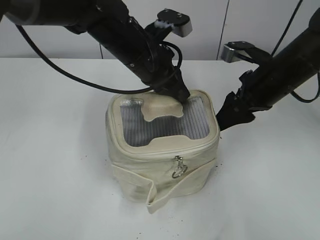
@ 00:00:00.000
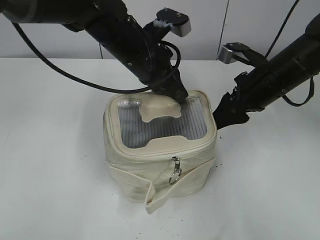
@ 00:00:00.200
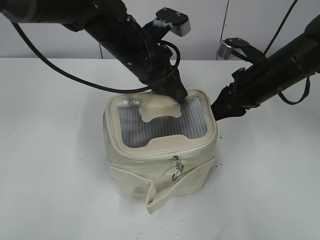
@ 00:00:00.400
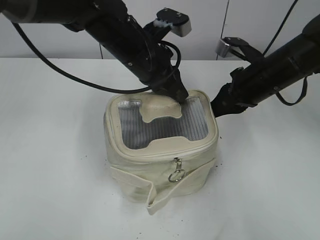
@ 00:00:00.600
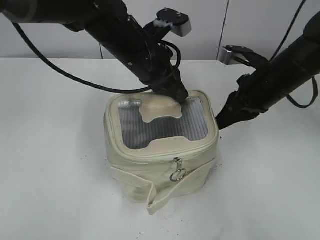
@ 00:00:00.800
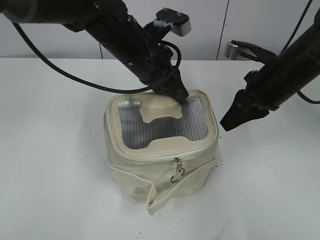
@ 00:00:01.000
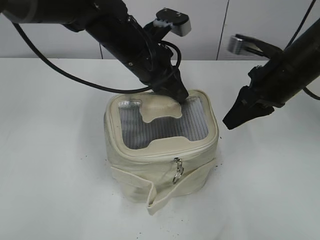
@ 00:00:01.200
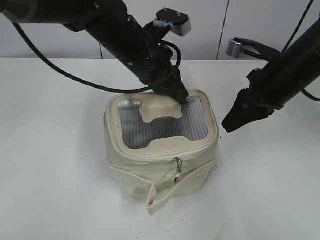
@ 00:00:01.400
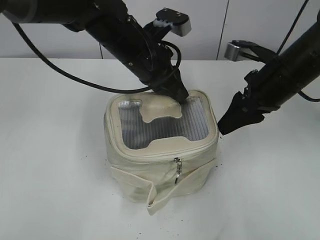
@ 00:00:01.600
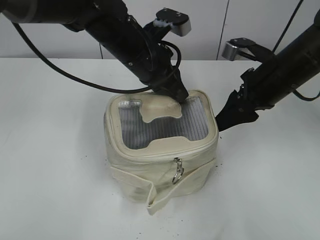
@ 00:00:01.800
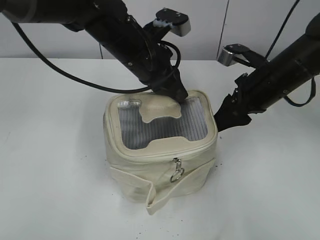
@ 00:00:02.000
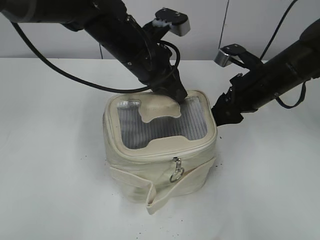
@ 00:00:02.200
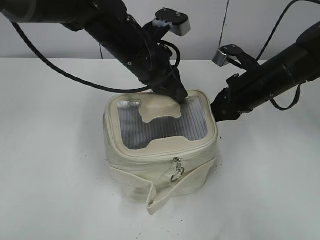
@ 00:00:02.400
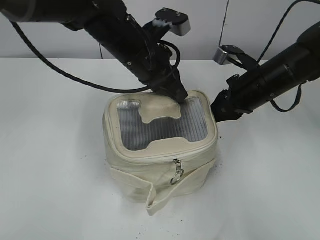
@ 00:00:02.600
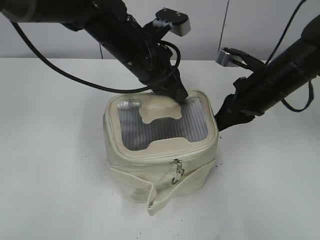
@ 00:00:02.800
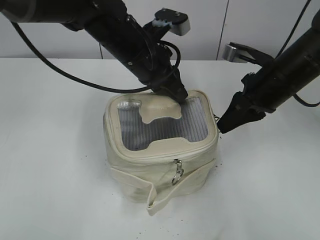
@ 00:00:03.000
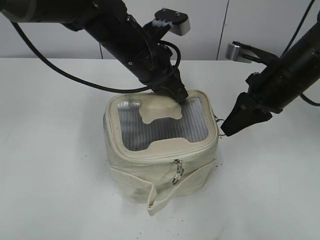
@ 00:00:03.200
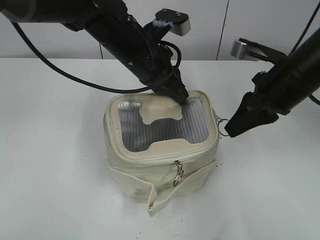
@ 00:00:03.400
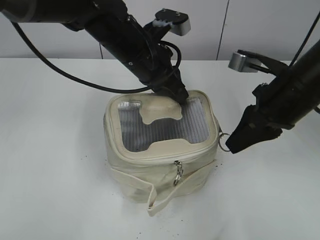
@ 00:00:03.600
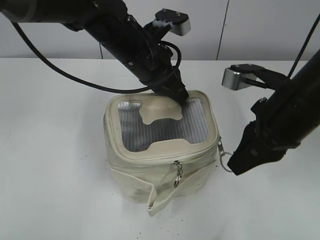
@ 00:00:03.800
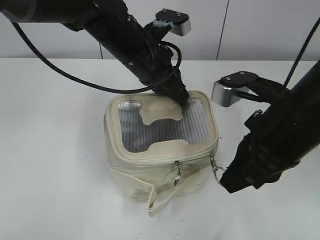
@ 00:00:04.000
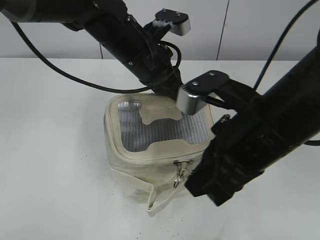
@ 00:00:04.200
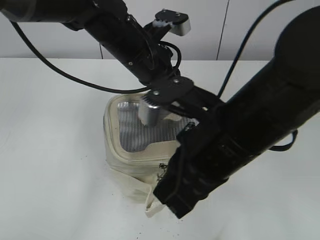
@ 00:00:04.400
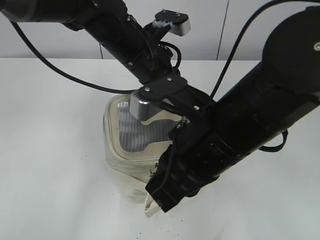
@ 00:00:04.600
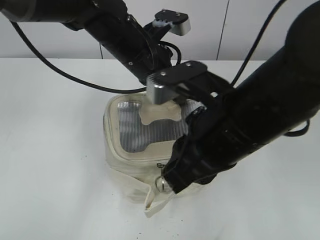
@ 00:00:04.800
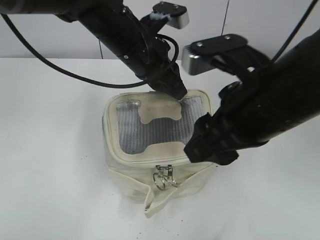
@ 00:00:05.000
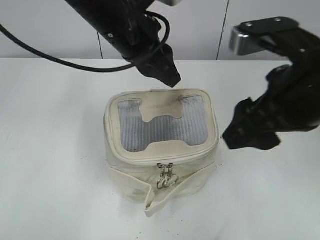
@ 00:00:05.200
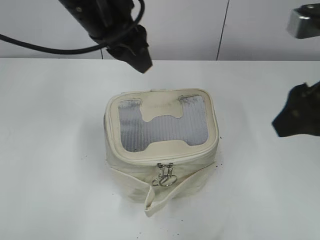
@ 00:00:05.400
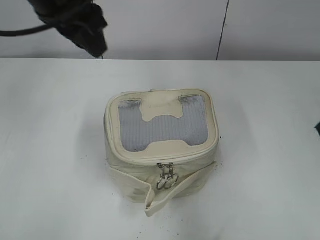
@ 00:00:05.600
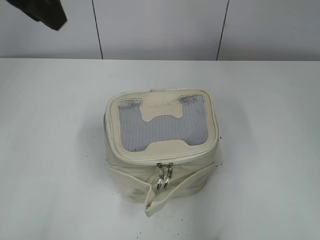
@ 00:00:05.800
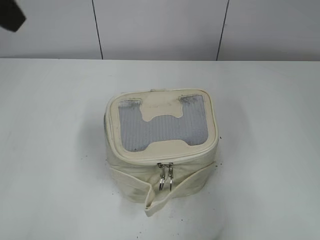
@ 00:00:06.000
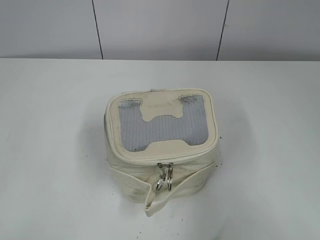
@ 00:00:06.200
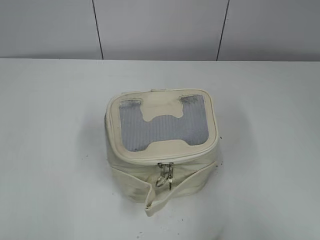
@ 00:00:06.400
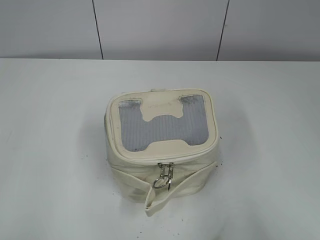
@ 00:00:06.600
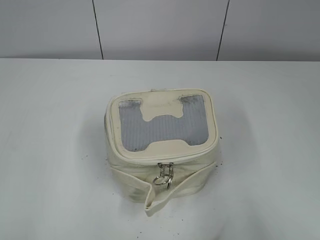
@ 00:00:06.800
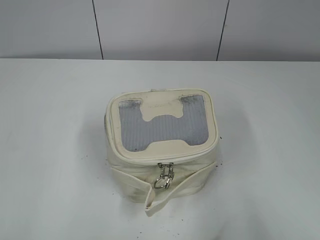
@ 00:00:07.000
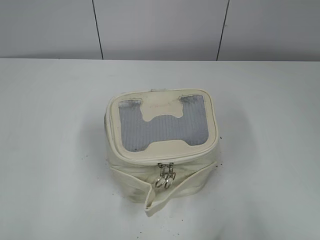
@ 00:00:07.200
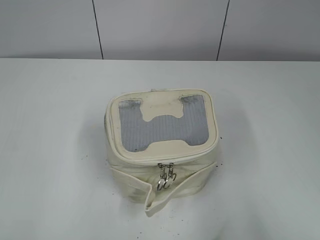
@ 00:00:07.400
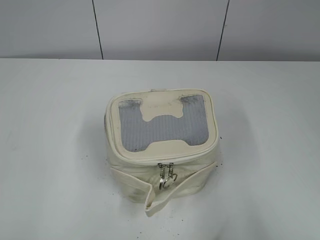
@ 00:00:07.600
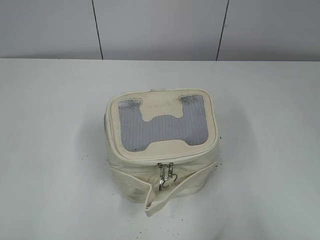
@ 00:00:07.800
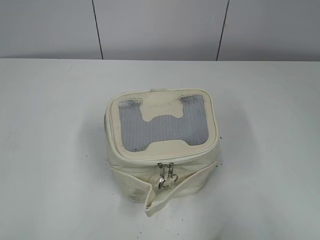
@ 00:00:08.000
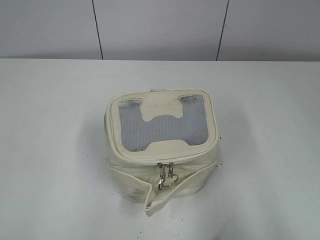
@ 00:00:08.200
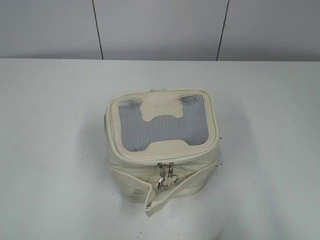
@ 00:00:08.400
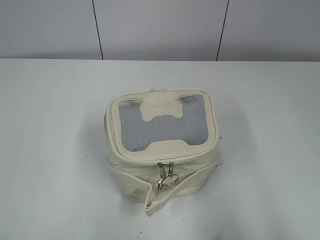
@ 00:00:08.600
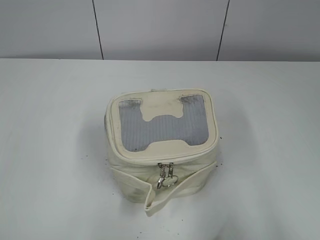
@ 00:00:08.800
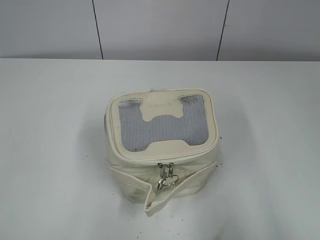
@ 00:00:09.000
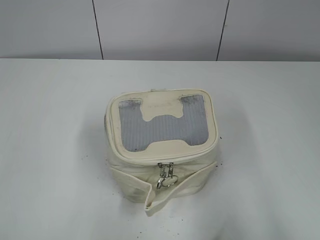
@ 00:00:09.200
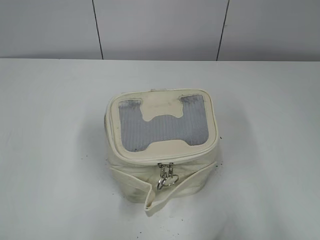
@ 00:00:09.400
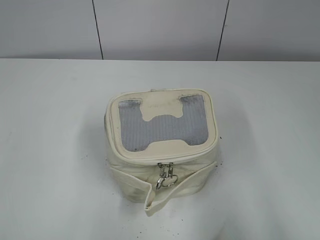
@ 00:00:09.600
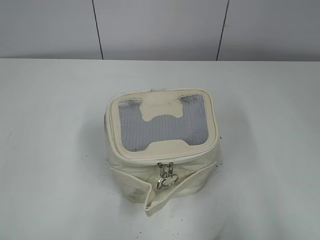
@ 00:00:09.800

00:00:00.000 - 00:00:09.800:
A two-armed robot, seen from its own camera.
Step, 00:00:00.000 - 00:00:04.600: Zip up the bag with your right hand.
Step, 00:00:04.800 - 00:00:05.400: Hold the bag with your left hand.
00:00:00.000 - 00:00:01.400: The right gripper closes up.
00:00:01.400 - 00:00:02.800: The right gripper opens and closes again.
00:00:02.800 - 00:00:04.200: The right gripper heads backward, to the left and upward, covering about 20 cm.
00:00:04.200 - 00:00:05.600: The left gripper heads upward and to the left, covering approximately 15 cm, and opens up, while the right gripper travels to the right and upward by approximately 15 cm, and opens its fingers.
00:00:05.600 - 00:00:07.000: The left gripper goes about 35 cm backward and to the left, while the right gripper is displaced backward by roughly 20 cm.
